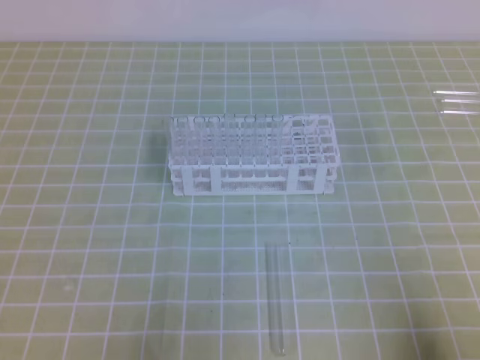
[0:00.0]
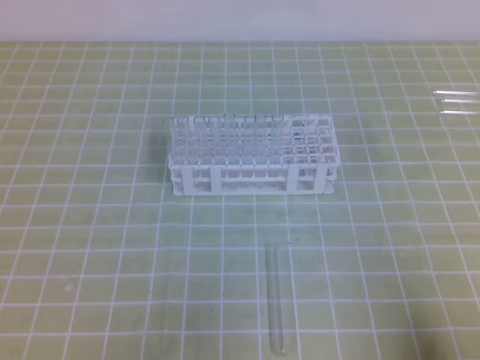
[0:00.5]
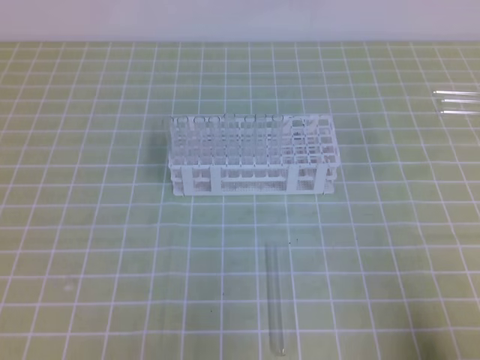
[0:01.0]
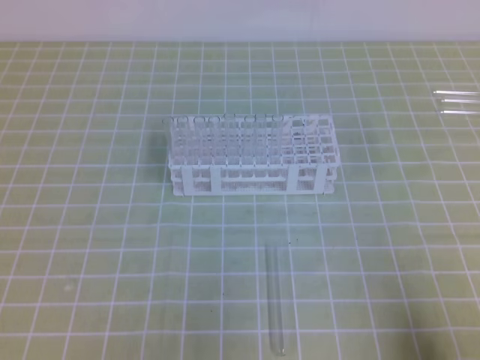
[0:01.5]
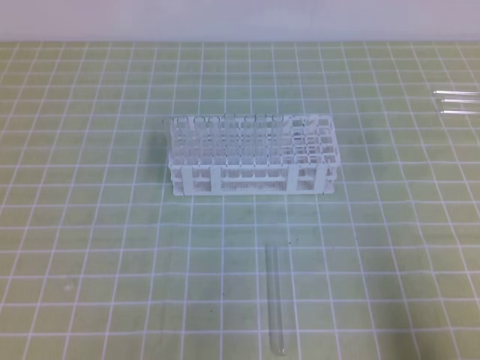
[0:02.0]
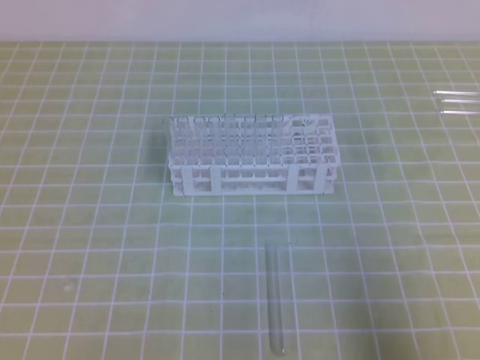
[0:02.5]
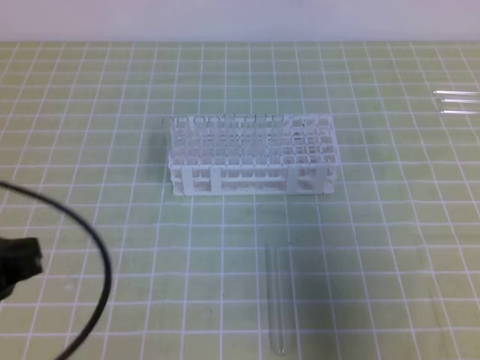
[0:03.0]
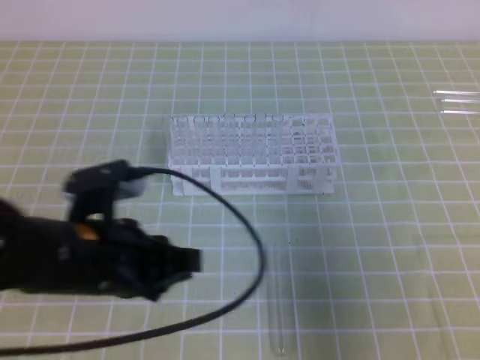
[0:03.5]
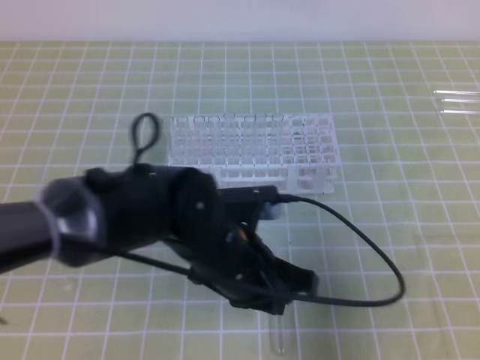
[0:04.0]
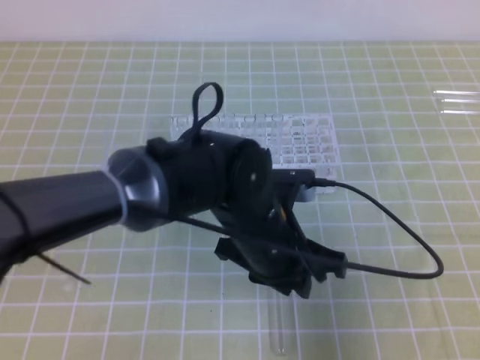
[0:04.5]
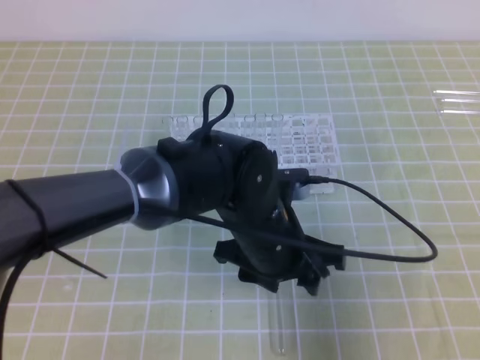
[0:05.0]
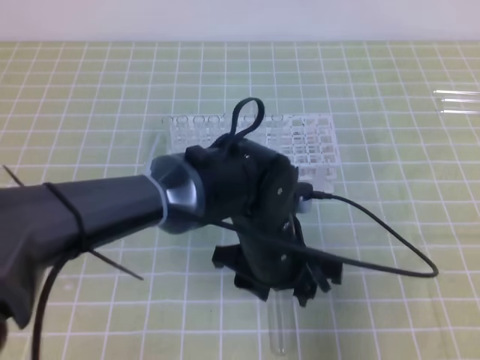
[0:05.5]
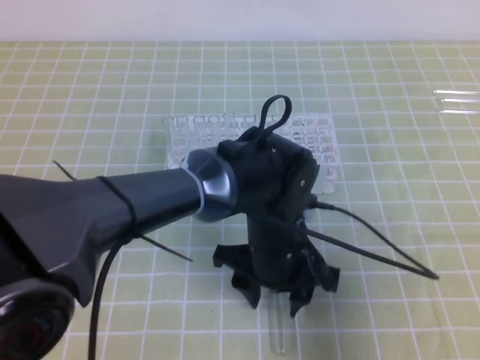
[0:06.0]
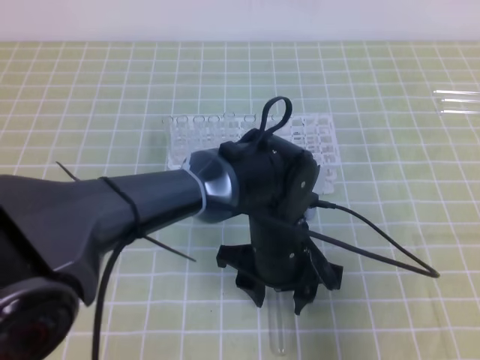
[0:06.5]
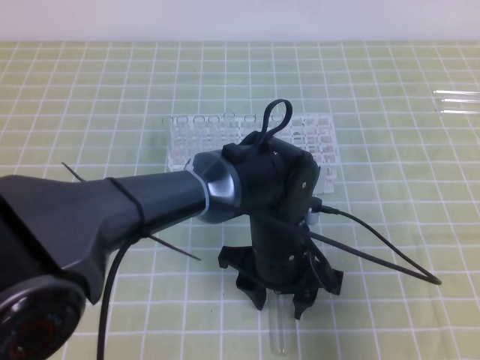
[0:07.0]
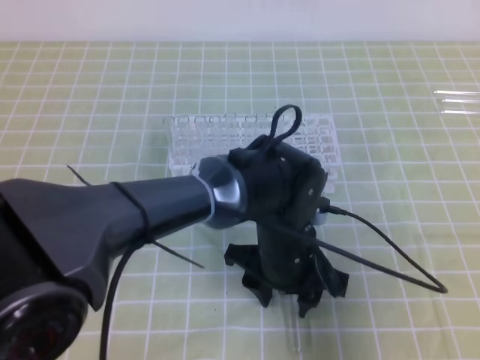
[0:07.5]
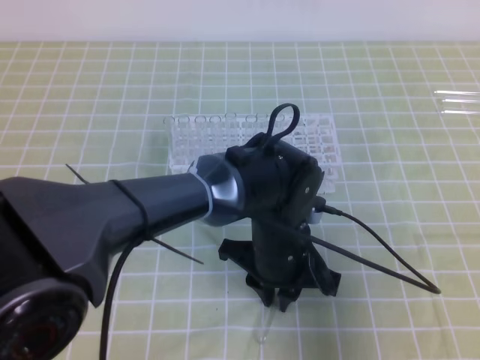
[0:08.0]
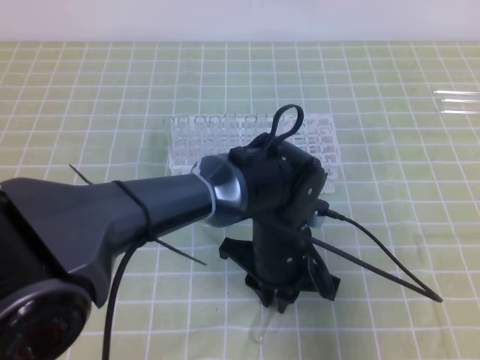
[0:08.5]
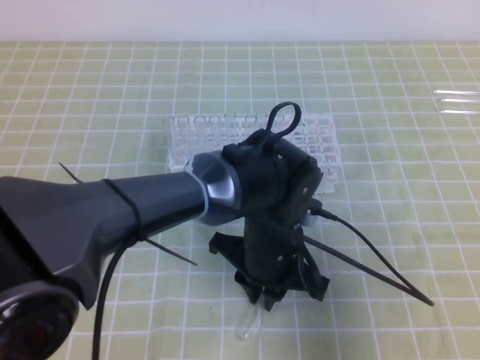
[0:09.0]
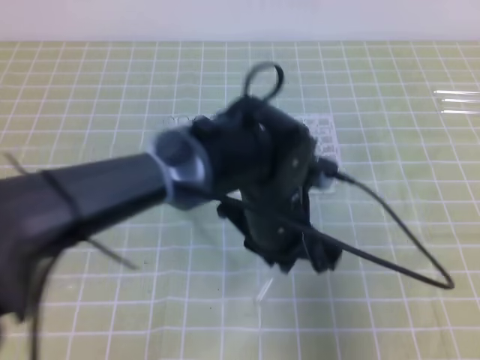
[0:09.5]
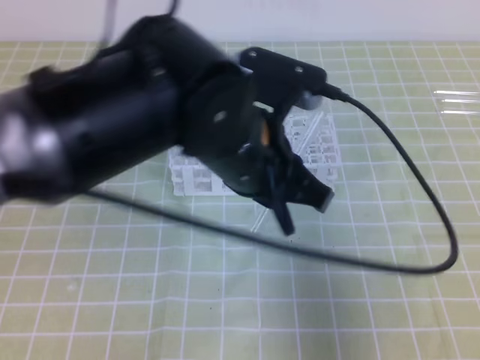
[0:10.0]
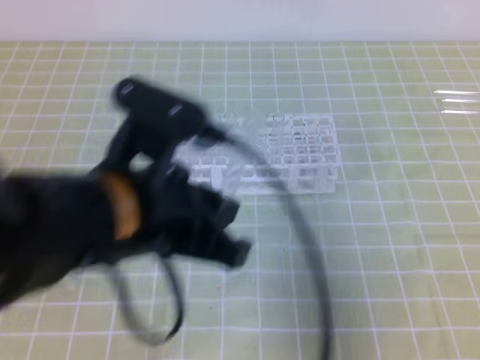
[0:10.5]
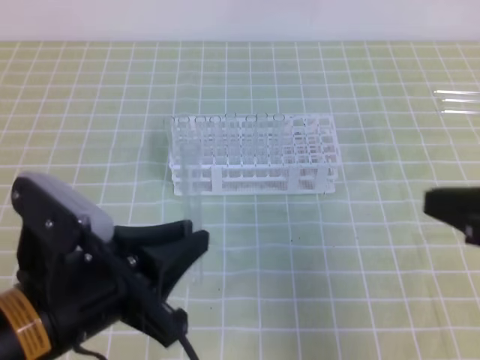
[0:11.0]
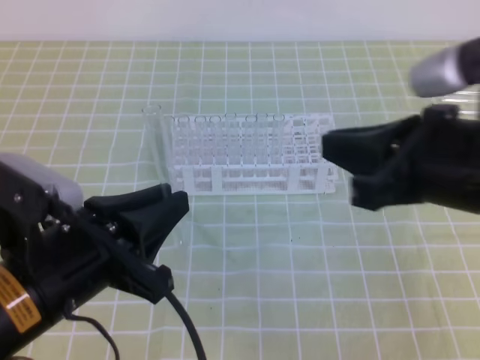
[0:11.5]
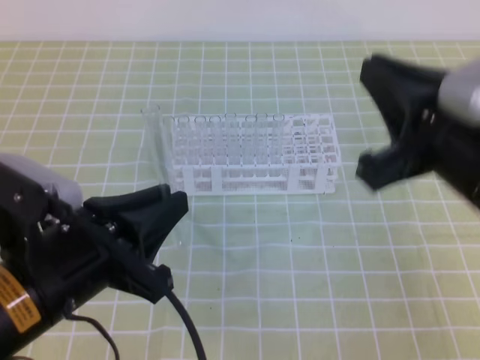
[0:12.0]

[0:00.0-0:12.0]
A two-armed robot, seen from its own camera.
0:02.0 to 0:04.0: The right gripper moves upward and forward, roughly 10 cm, while the left gripper goes roughly 30 cm to the right and forward.
0:04.0 to 0:06.0: The left gripper travels to the right by roughly 5 cm, and opens its fingers.
0:06.0 to 0:08.0: The left gripper closes up.
0:08.0 to 0:10.0: The left gripper moves upward, roughly 15 cm.
0:10.0 to 0:12.0: The right gripper travels to the left and upward by approximately 15 cm; the left gripper heads to the left and backward, covering approximately 15 cm.

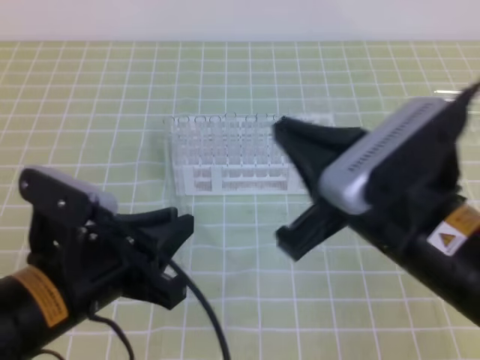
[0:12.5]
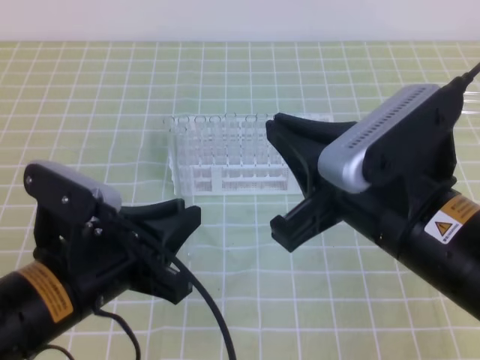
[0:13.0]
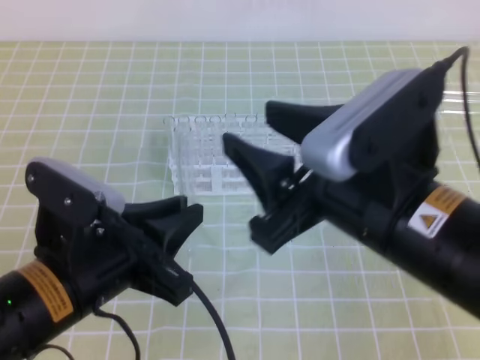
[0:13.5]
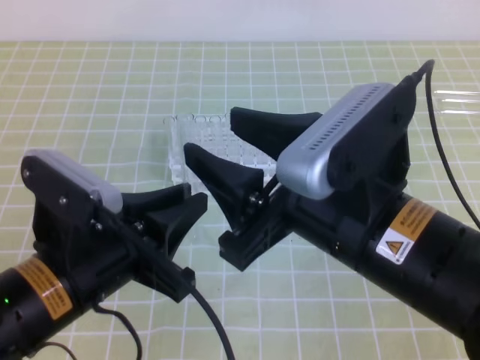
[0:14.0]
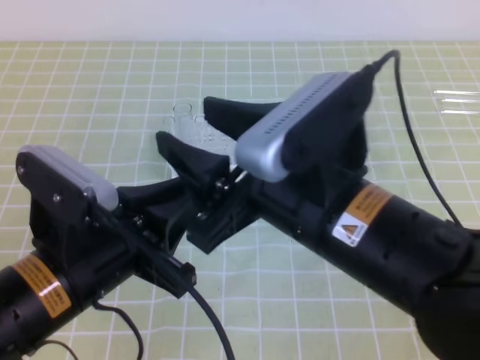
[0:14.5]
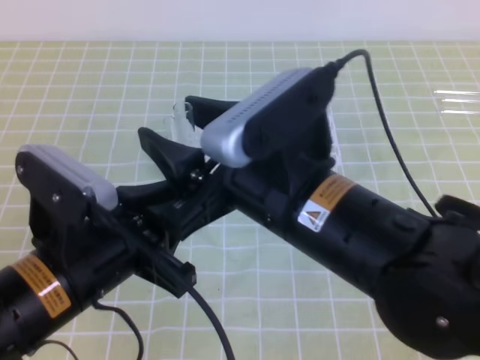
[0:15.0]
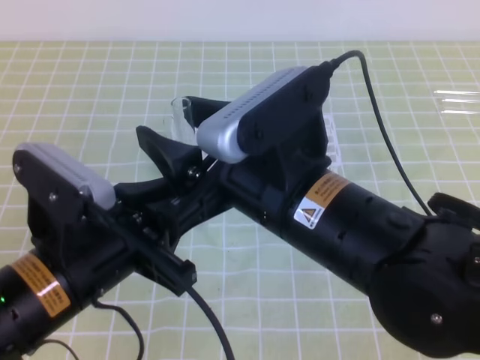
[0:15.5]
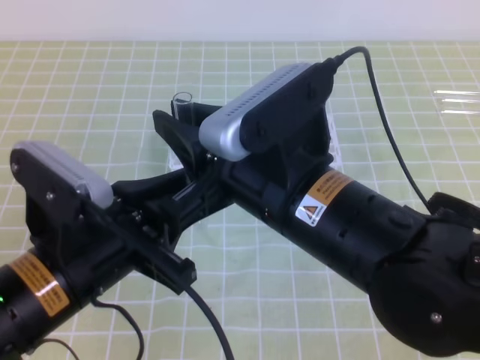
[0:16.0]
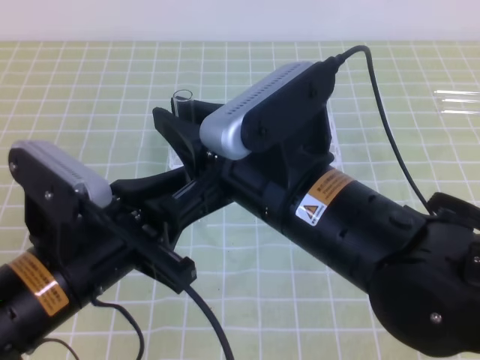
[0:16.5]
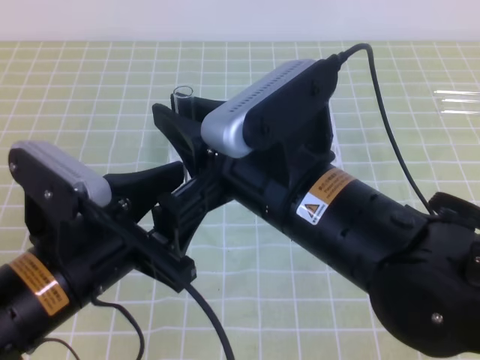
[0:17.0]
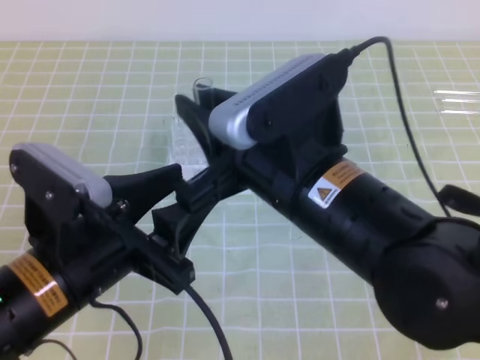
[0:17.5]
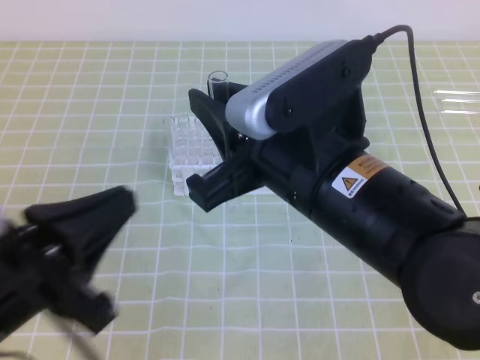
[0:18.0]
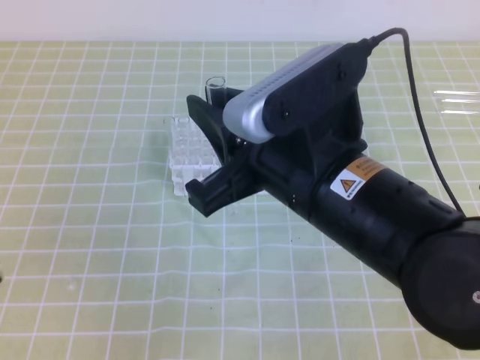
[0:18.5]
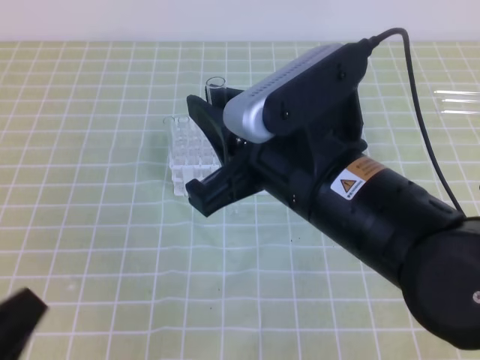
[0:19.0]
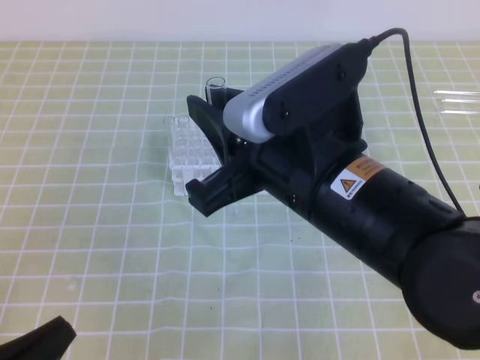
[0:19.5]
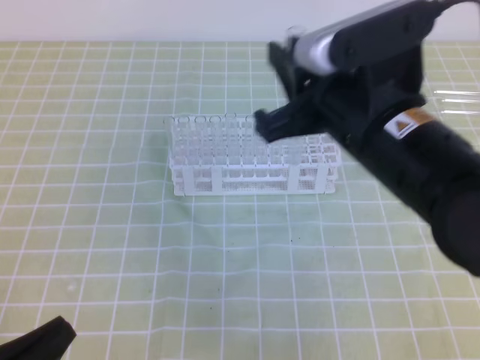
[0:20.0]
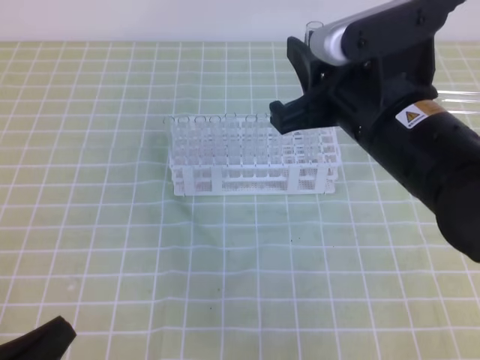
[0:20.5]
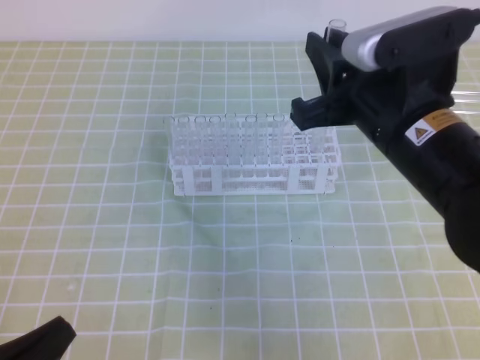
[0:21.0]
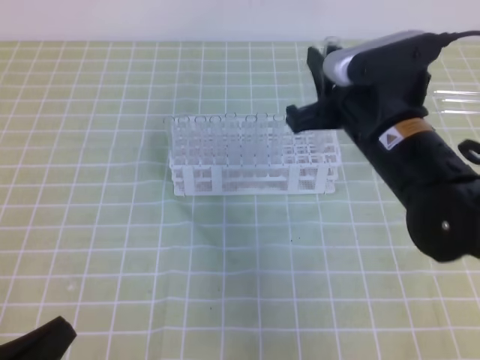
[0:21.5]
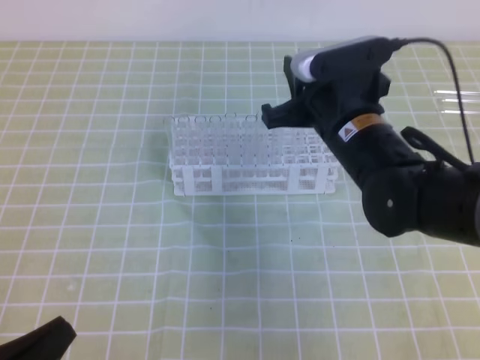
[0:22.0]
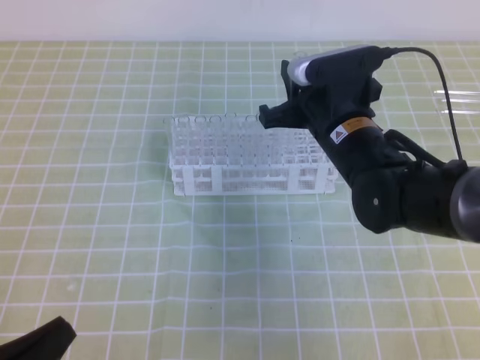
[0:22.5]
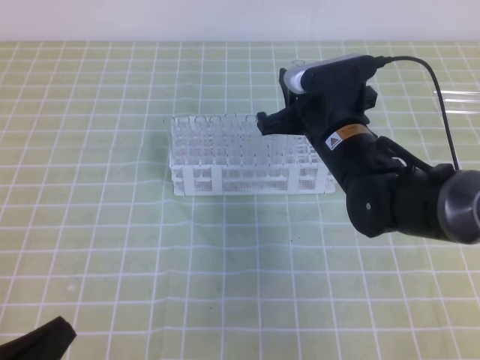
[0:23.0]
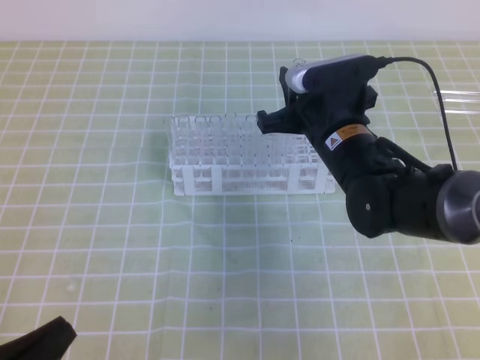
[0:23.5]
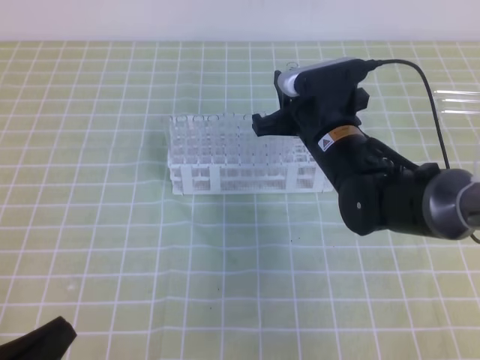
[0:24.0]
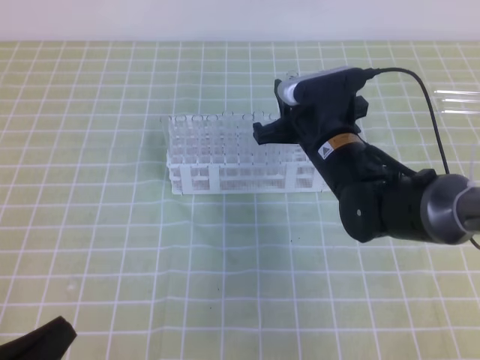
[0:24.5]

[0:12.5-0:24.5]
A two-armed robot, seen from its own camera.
0:12.5 to 0:14.5: The right gripper goes some 5 cm to the left, and opens up.
0:14.5 to 0:16.5: The right gripper closes up.
0:16.5 to 0:18.5: The left gripper shifts approximately 15 cm to the left and backward, and opens, then closes once more.
0:18.5 to 0:20.5: The right gripper heads forward and to the right, covering approximately 10 cm, while the left gripper heads downward, covering about 10 cm.
0:20.5 to 0:22.5: The right gripper moves downward and forward, approximately 15 cm.
0:22.5 to 0:24.5: The grippers make only small movements.

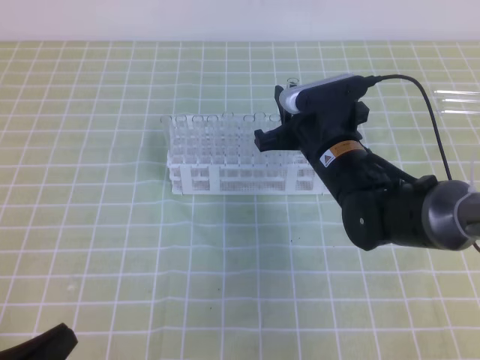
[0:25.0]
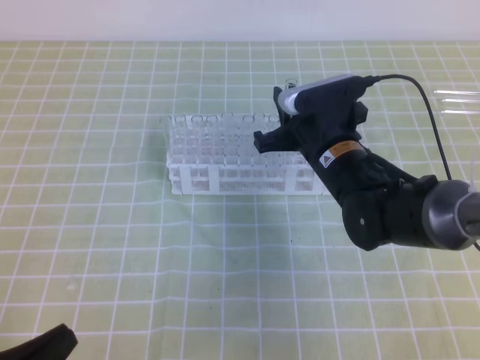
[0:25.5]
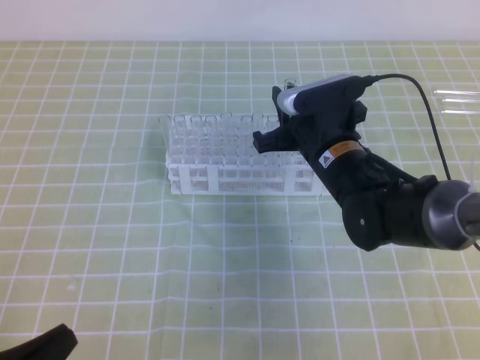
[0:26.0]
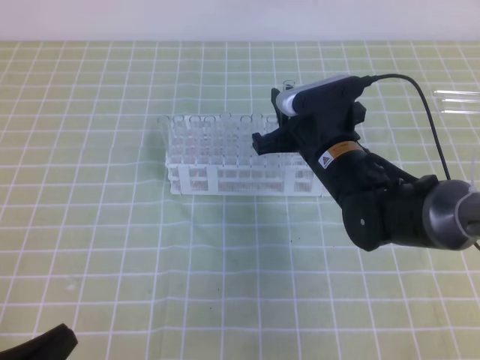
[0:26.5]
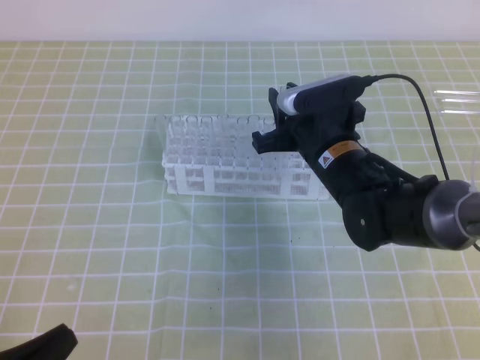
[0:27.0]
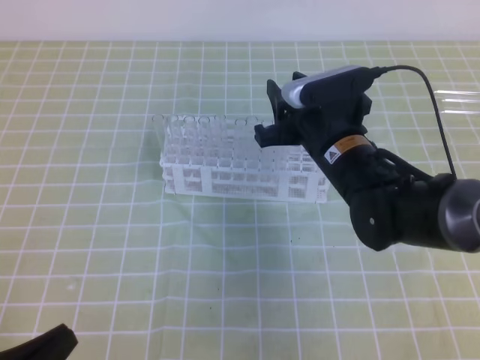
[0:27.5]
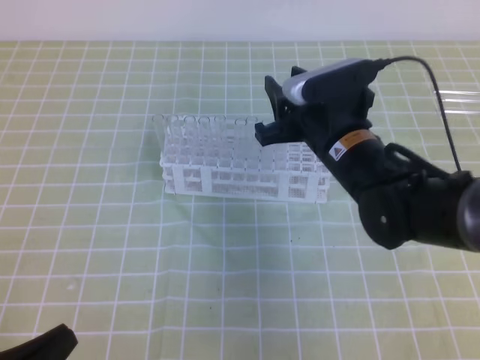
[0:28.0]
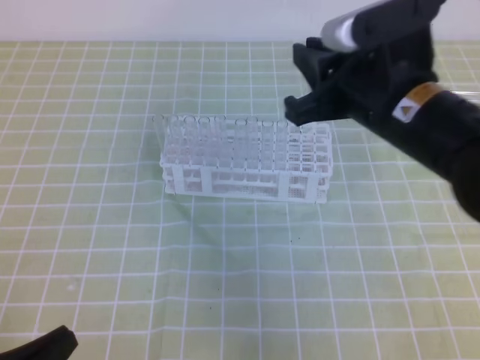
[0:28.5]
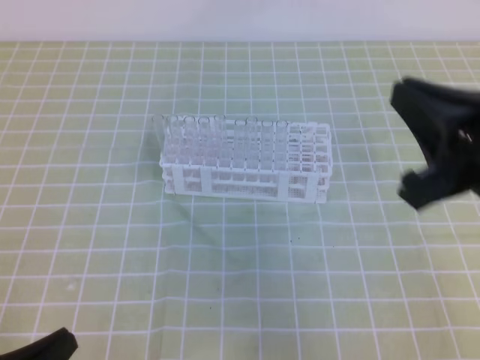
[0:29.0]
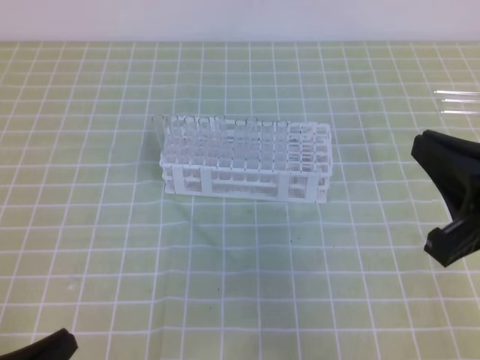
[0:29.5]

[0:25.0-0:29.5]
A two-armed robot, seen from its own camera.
0:25.0 to 0:27.0: Neither gripper changes place.
0:27.0 to 0:29.5: The right gripper travels backward, to the right and upward by roughly 25 cm, and closes.
